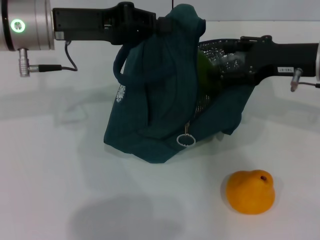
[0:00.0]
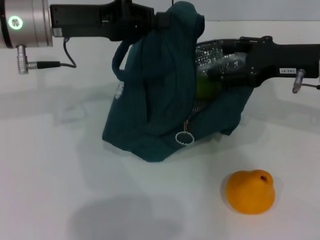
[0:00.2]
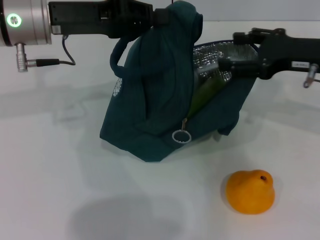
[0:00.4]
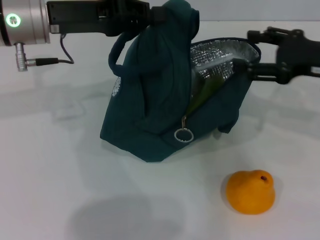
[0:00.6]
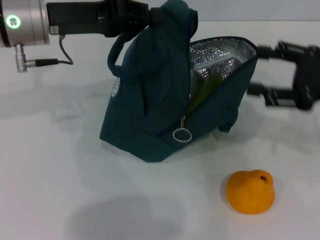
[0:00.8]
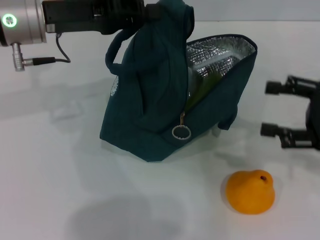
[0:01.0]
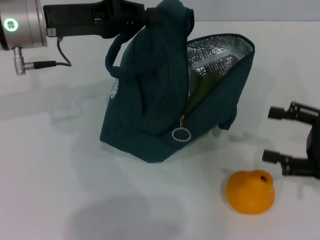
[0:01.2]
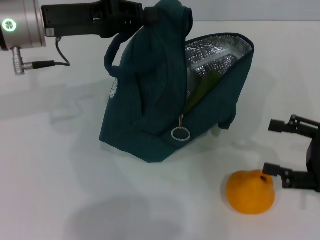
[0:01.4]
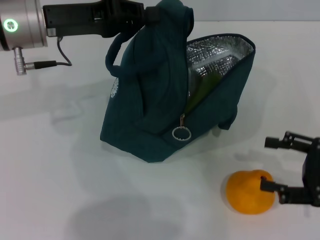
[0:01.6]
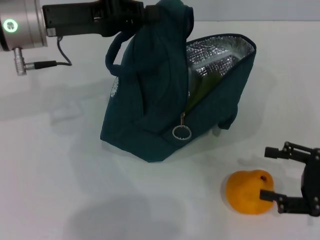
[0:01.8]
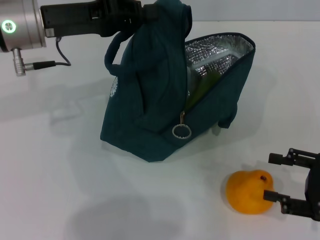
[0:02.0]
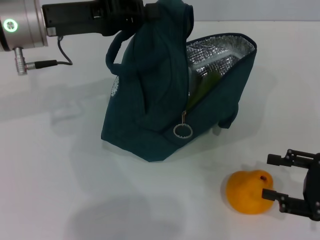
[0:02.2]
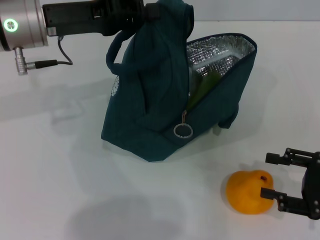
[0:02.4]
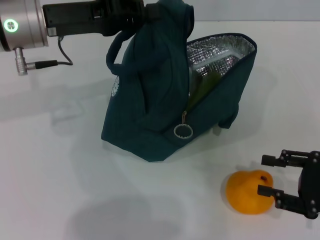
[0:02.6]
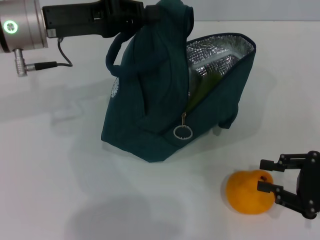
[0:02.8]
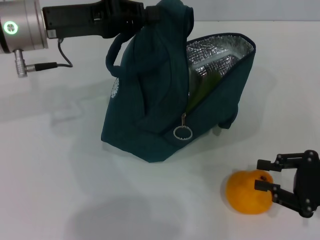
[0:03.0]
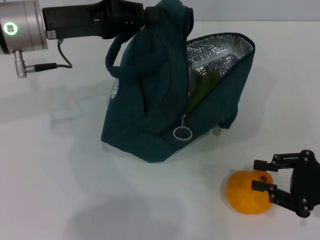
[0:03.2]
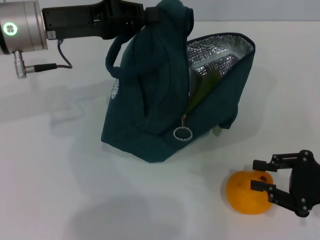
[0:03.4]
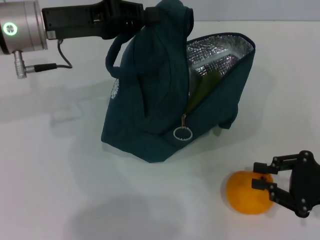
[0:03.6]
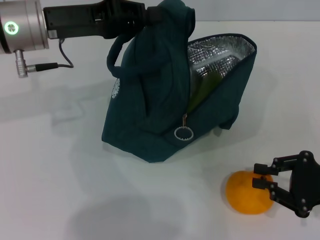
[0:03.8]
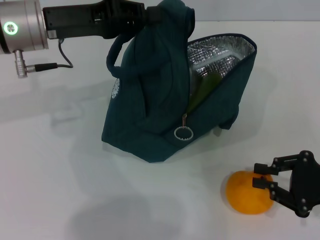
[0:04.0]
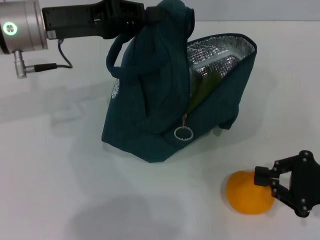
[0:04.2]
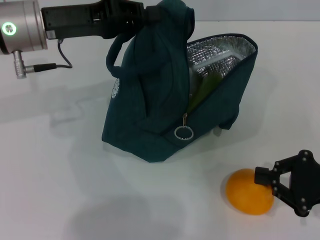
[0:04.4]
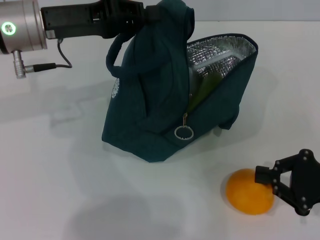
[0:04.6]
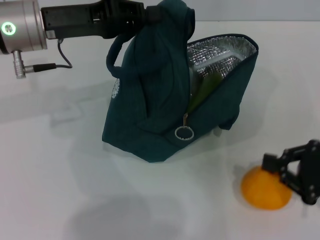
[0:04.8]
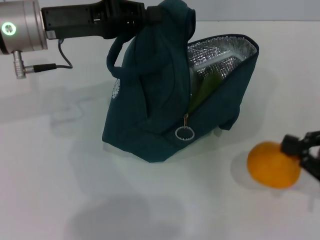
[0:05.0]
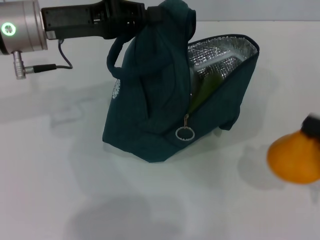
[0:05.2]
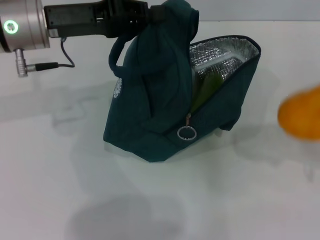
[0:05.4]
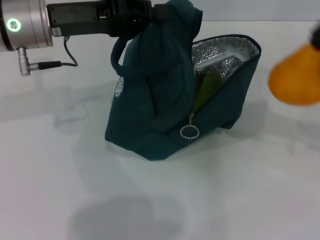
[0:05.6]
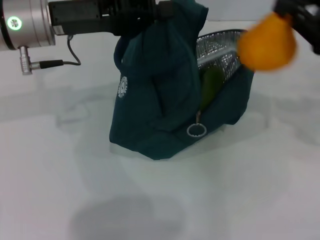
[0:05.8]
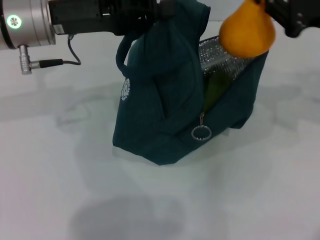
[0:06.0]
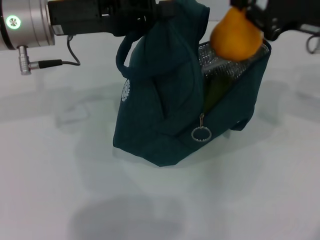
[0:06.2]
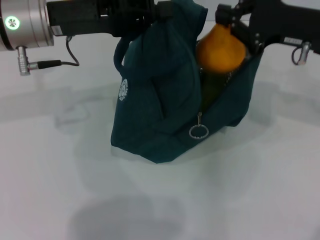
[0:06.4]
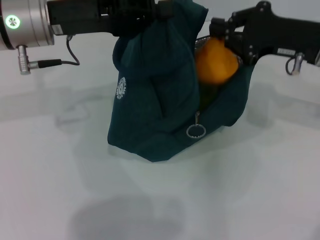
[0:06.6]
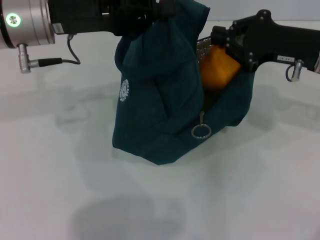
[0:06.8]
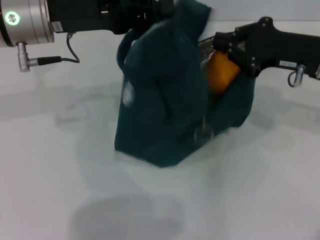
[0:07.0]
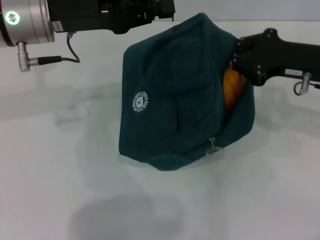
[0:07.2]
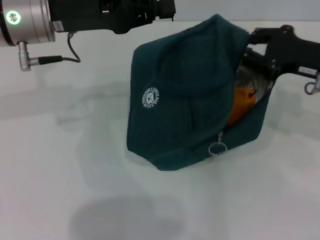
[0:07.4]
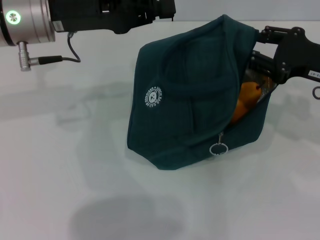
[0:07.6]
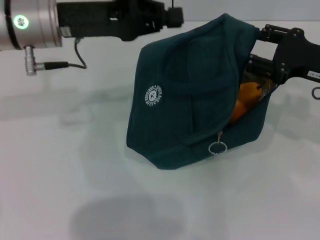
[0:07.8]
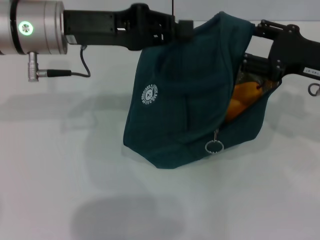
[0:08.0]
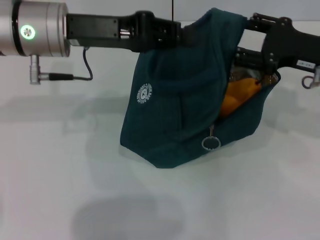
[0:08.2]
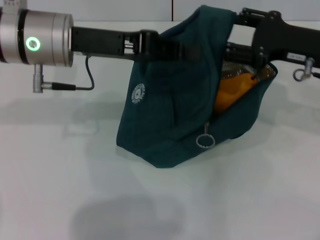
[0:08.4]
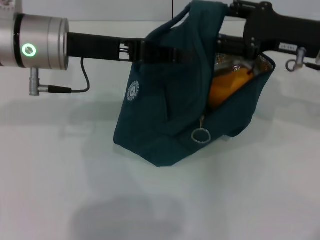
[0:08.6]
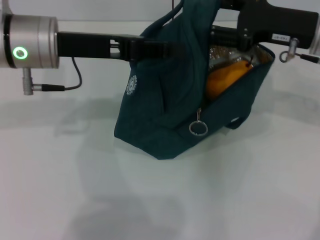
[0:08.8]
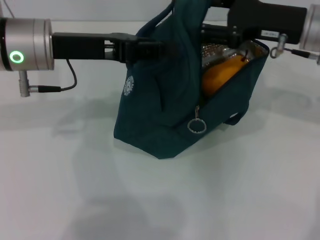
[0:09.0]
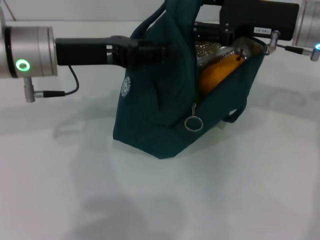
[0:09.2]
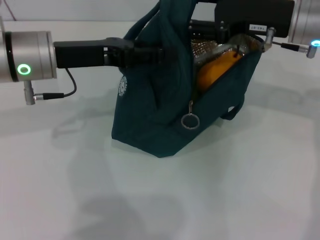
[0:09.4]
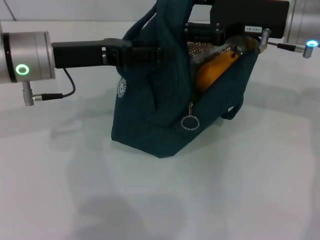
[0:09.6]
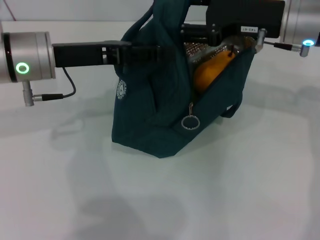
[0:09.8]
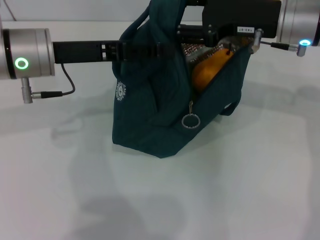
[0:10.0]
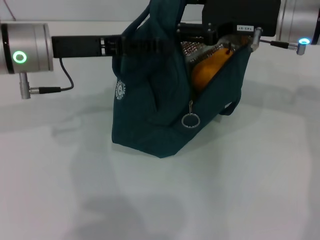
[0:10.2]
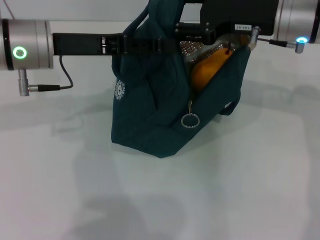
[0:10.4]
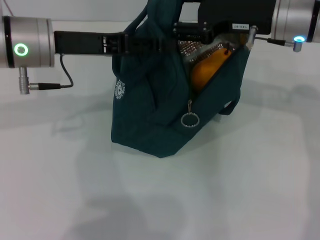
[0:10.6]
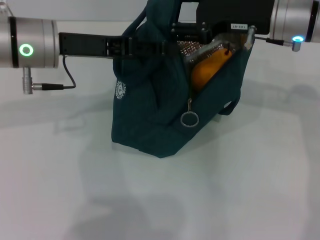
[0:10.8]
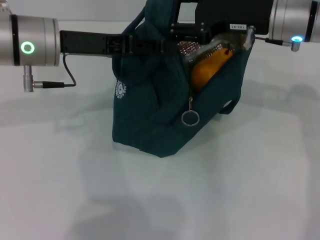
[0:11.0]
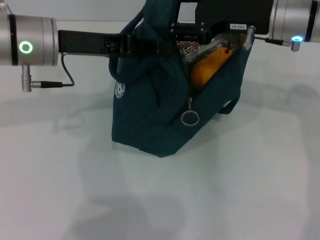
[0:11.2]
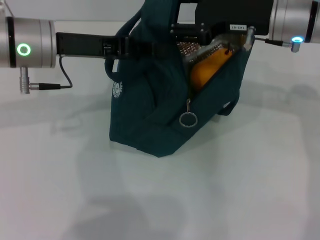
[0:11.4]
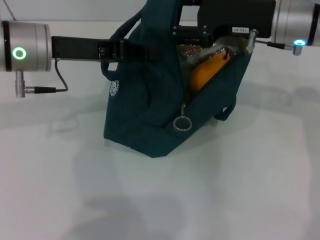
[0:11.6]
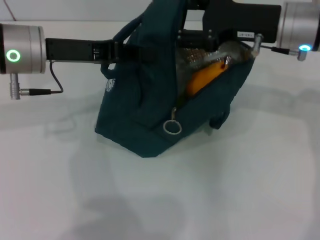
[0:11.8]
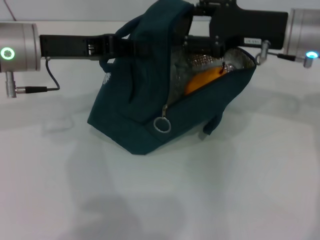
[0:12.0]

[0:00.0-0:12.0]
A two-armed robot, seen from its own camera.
Step, 0:00.6 to 0:04.4: Grab the pear with your right hand.
0:00.0 to 0:01.6: The right gripper moves backward, to the right and downward, roughly 20 cm.
0:01.6 to 0:03.0: The right gripper closes its fingers.
0:03.0 to 0:04.4: The right gripper closes its fingers.
0:04.4 to 0:06.0: The right gripper heads upward and forward, covering approximately 20 cm.
0:06.0 to 0:07.6: The right gripper shifts about 5 cm downward.
0:07.6 to 0:09.0: The right gripper moves to the left and forward, some 10 cm, and opens.
0:09.0 to 0:10.4: The left gripper opens up.
0:10.4 to 0:12.0: The left gripper closes.

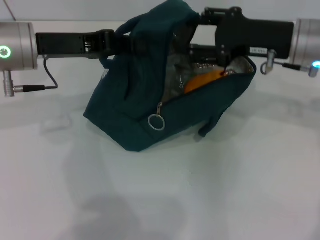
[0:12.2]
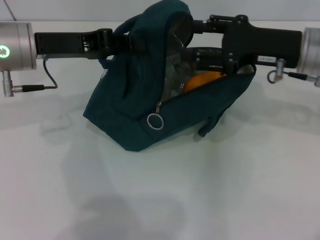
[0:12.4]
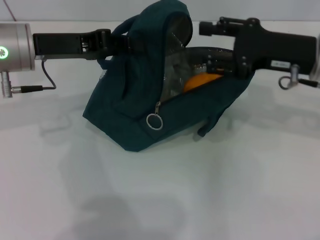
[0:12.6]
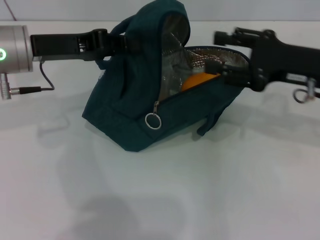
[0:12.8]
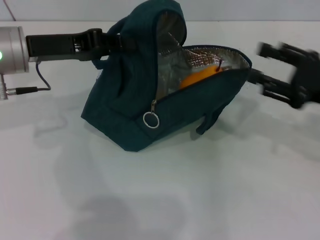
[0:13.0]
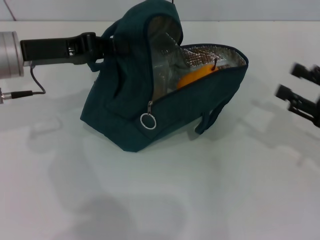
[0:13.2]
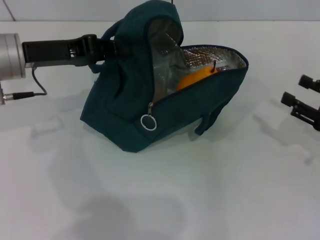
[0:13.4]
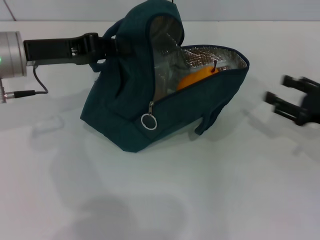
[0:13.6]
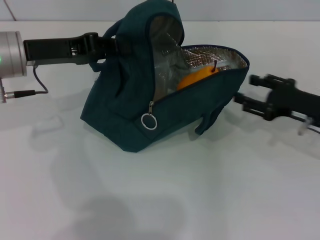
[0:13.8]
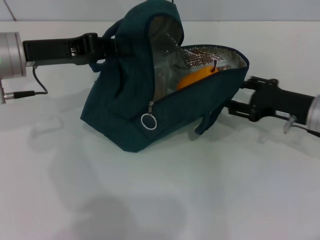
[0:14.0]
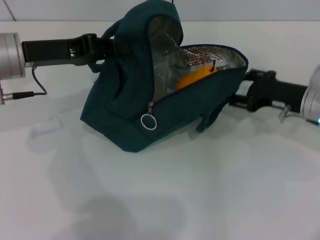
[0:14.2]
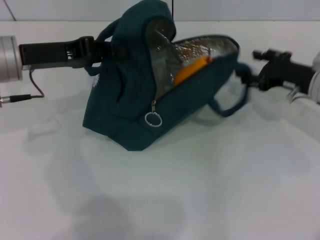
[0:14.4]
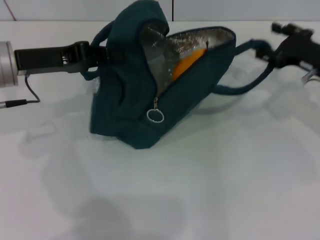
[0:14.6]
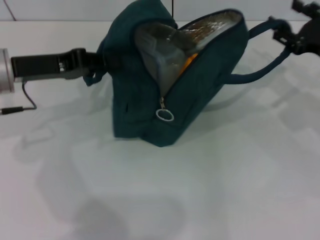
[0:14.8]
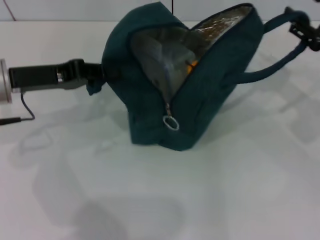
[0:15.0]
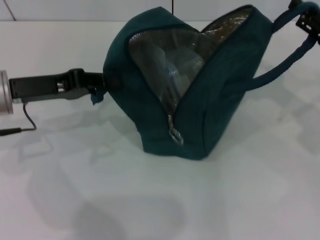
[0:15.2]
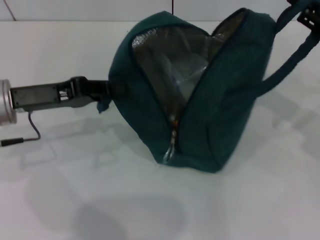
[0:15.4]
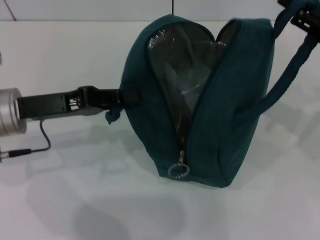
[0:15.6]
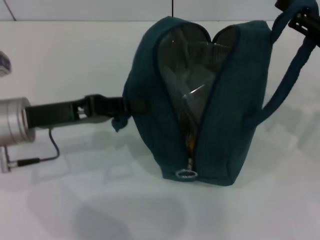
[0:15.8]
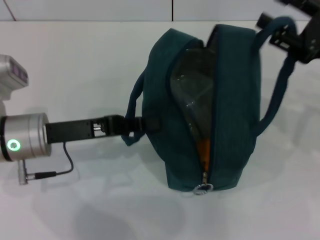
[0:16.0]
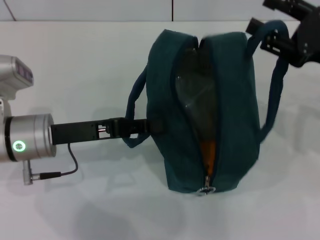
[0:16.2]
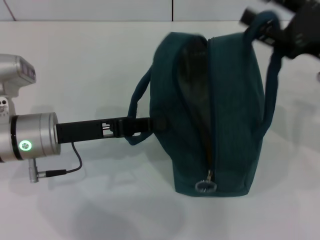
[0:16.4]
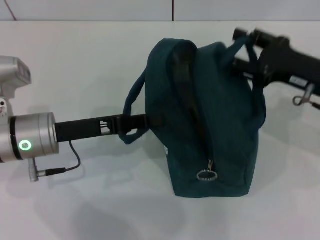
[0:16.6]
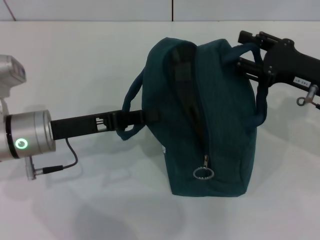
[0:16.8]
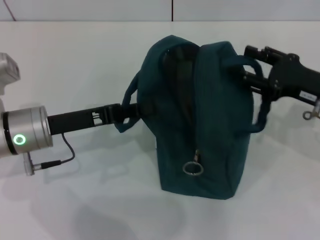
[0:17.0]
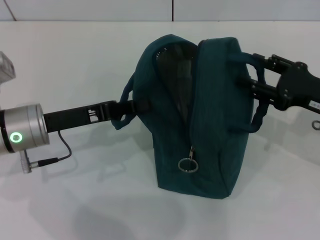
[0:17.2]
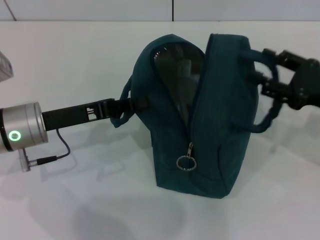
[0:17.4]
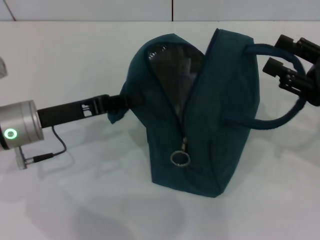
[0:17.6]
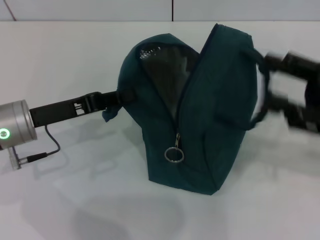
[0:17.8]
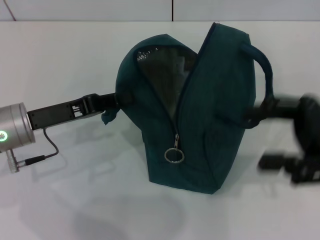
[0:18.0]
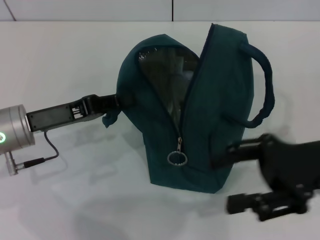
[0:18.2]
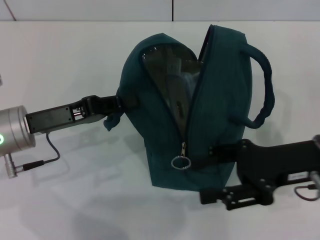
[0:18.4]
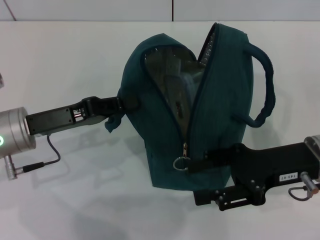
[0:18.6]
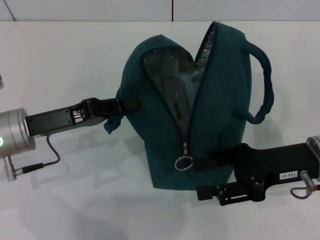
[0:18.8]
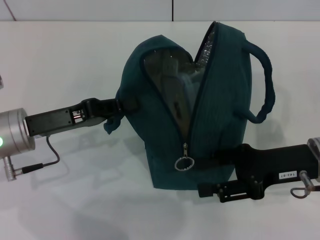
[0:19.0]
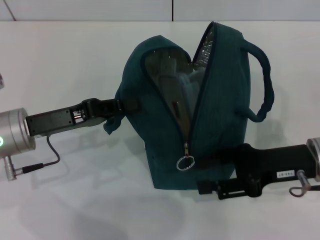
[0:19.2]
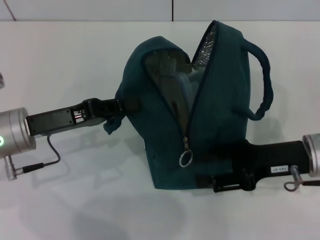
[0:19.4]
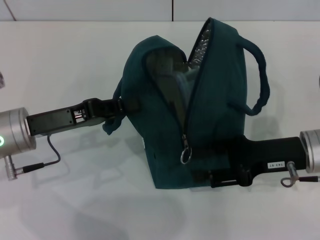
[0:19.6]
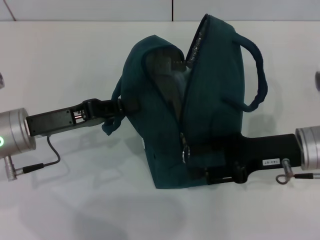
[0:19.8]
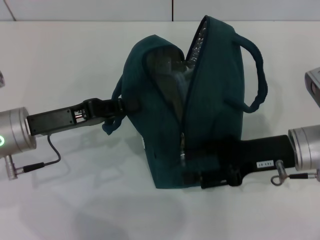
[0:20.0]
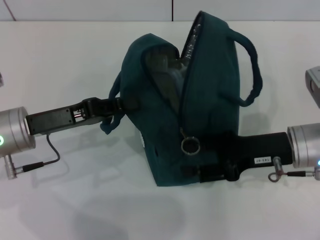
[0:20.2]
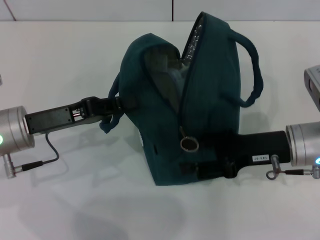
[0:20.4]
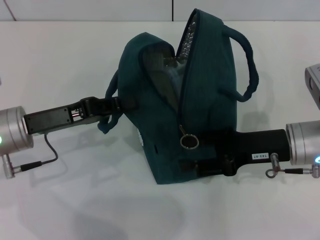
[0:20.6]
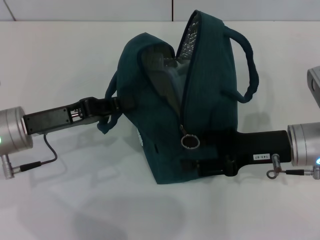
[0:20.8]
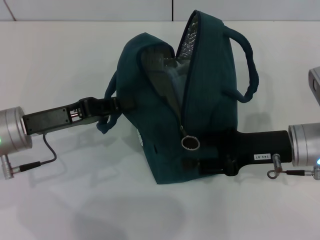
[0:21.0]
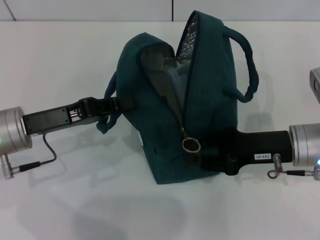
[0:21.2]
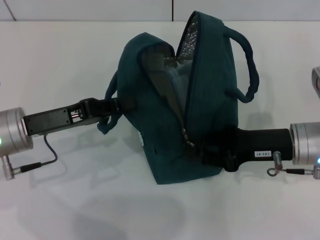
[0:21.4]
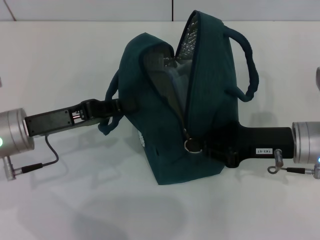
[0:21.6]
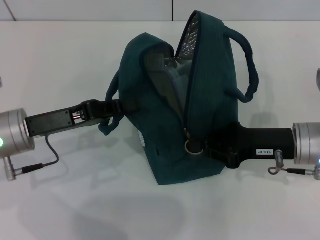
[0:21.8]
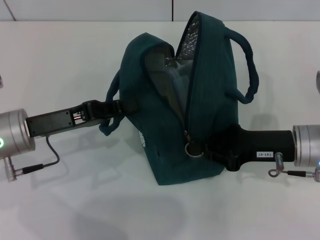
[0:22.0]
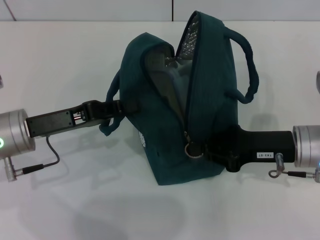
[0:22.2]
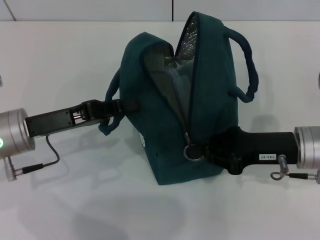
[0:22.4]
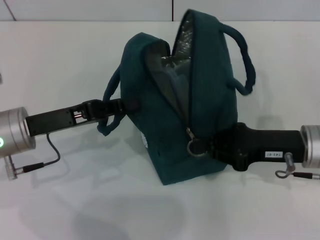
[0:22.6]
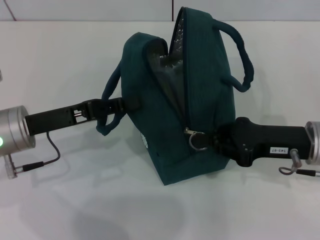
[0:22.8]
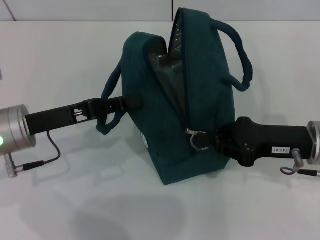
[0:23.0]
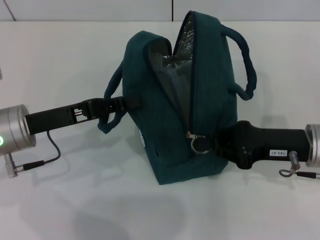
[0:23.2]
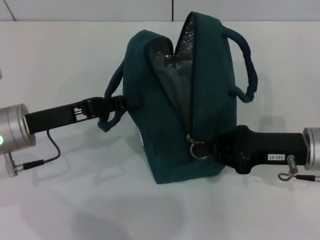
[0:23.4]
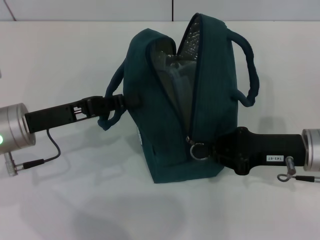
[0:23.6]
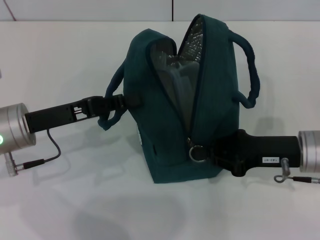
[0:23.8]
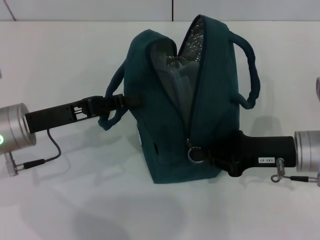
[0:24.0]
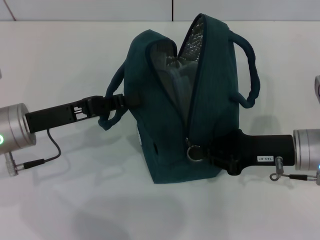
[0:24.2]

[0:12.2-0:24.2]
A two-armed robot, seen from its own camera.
Step, 0:12.2 to 0:17.6: Hold the lunch bag with your right hand.
0:12.2 to 0:13.8: The right gripper heads downward and to the right, covering about 15 cm.
0:13.8 to 0:15.2: The right gripper shifts approximately 10 cm upward, while the left gripper moves roughly 5 cm.
0:15.2 to 0:16.6: The right gripper is displaced to the left by some 5 cm; the left gripper goes about 5 cm to the right.
0:16.6 to 0:18.2: The right gripper moves backward, some 5 cm.
0:18.2 to 0:19.8: The right gripper shifts by some 5 cm.
0:19.8 to 0:21.2: Neither gripper changes place.
0:21.2 to 0:22.6: The right gripper closes up.
0:22.6 to 0:24.2: The grippers stay close to where they were, moving slightly.
